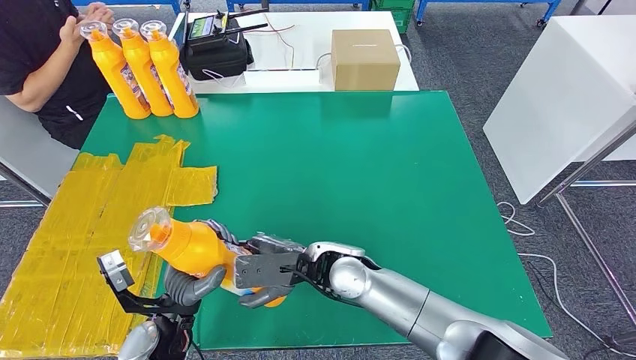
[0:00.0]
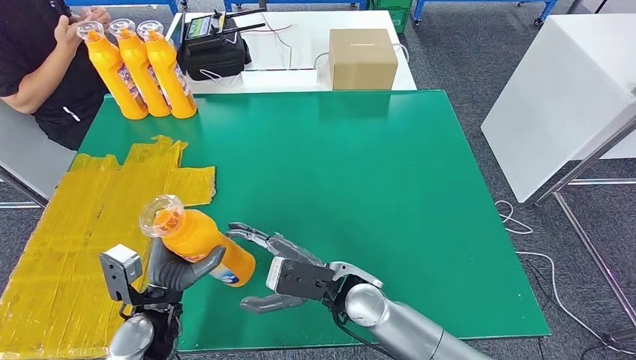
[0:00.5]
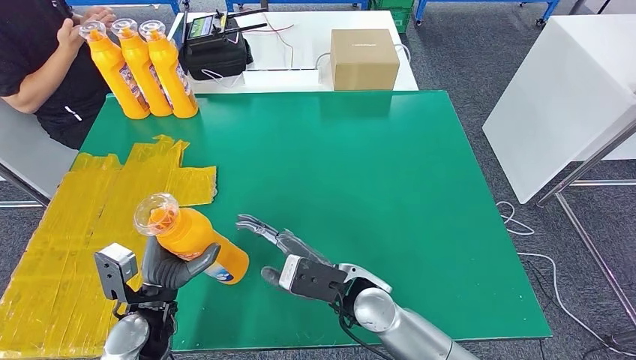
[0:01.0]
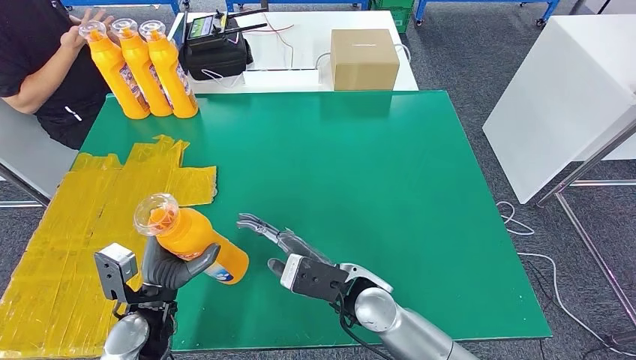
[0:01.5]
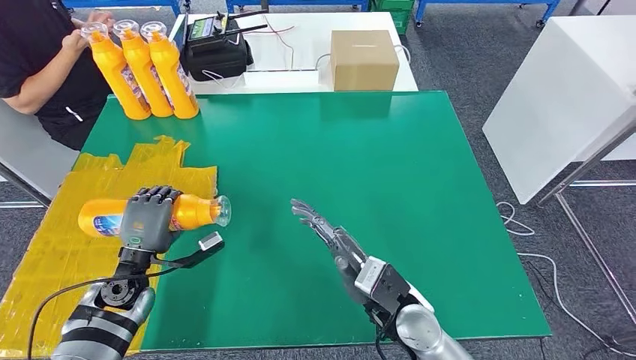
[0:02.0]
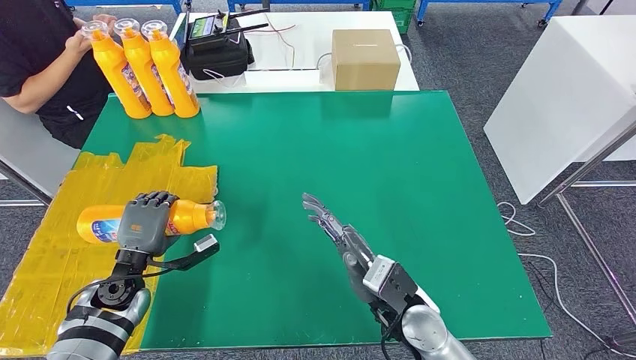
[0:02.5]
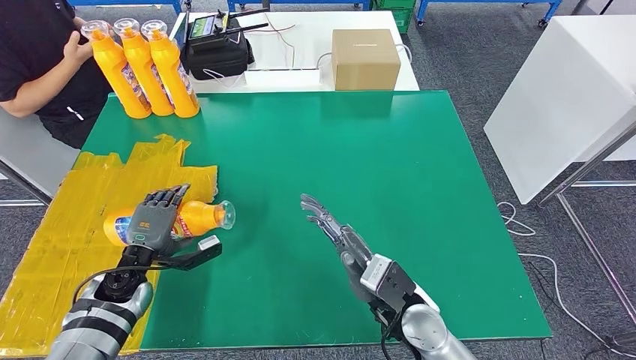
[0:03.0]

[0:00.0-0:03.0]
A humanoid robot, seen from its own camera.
Step, 0:00.0 to 0:03.0: Flip the bottle to face forward.
0:00.0 to 0:01.5: The right hand moves approximately 5 cm.
0:01.5 to 0:03.0: The right hand is displaced to the right by roughly 5 cm; the left hand travels to the left and forward by approximately 10 cm.
